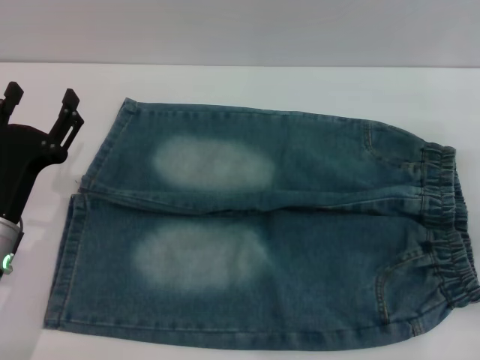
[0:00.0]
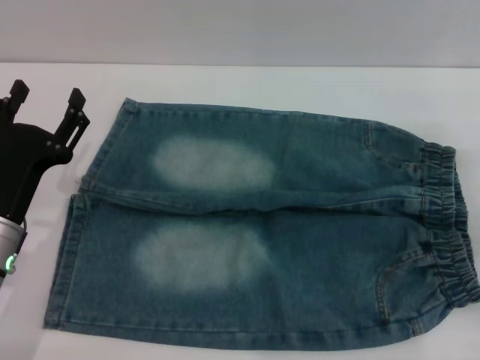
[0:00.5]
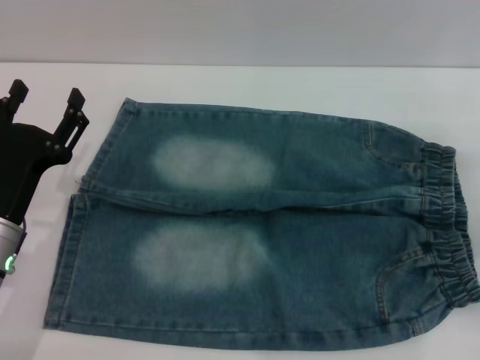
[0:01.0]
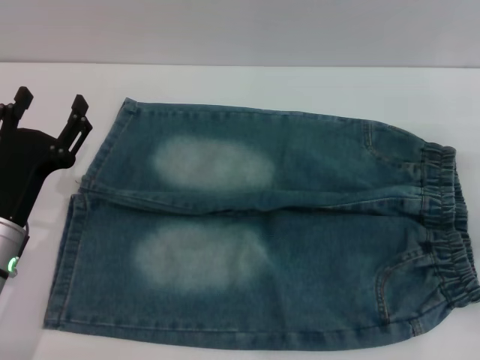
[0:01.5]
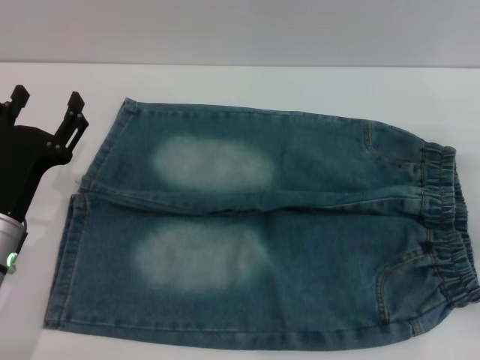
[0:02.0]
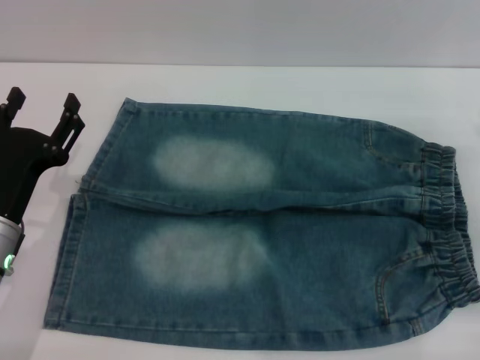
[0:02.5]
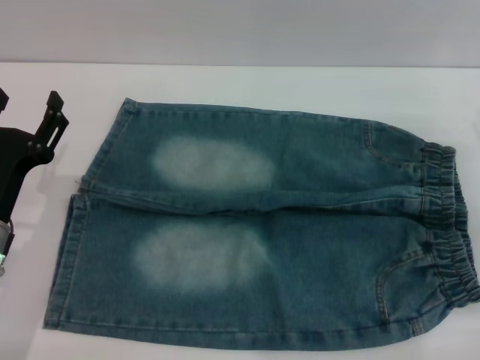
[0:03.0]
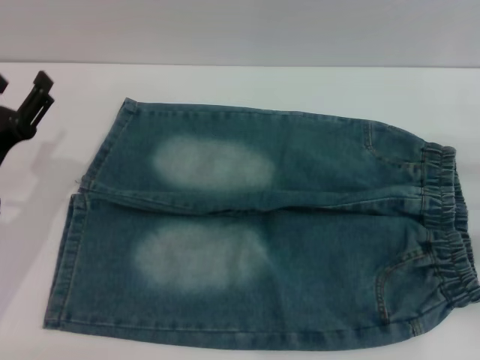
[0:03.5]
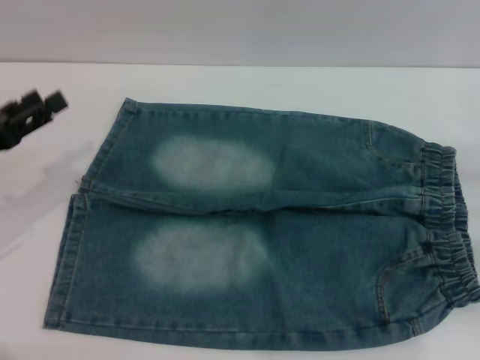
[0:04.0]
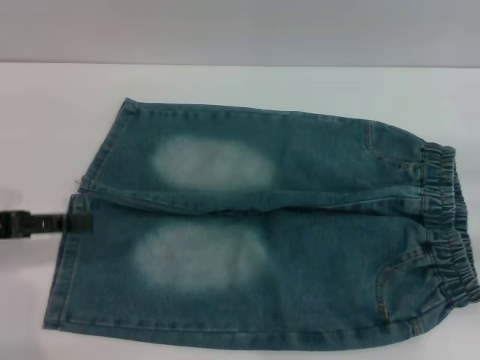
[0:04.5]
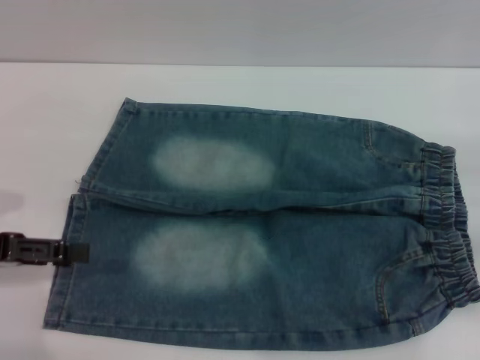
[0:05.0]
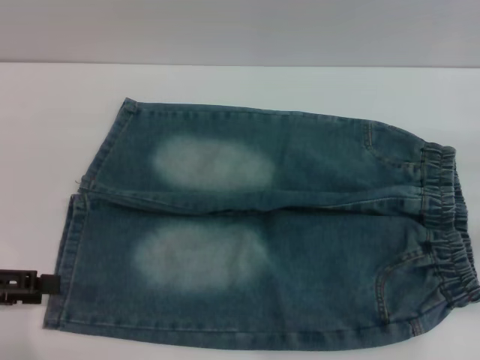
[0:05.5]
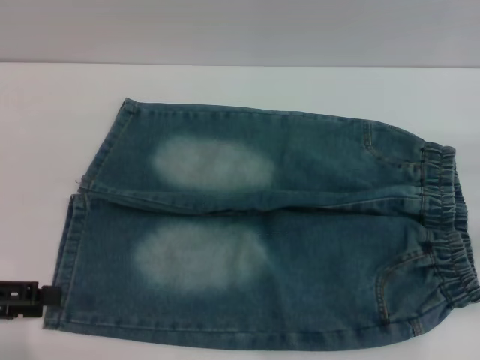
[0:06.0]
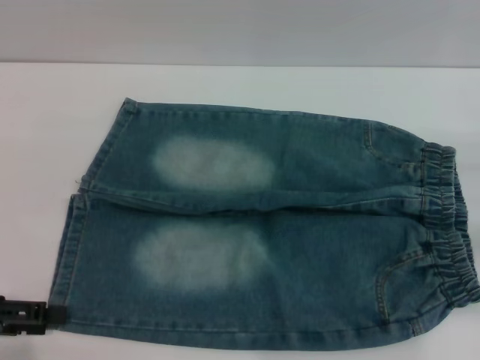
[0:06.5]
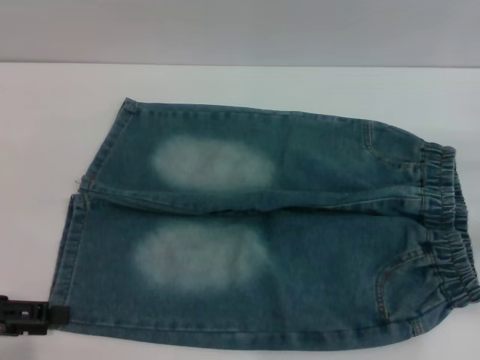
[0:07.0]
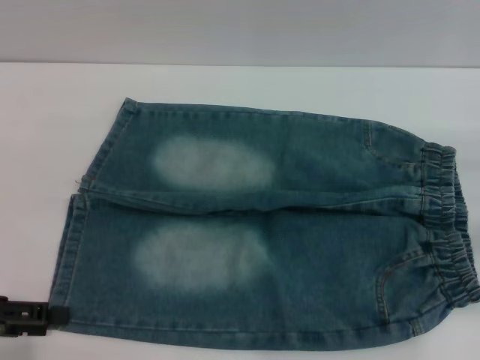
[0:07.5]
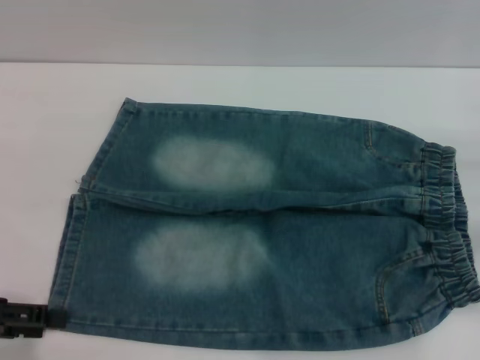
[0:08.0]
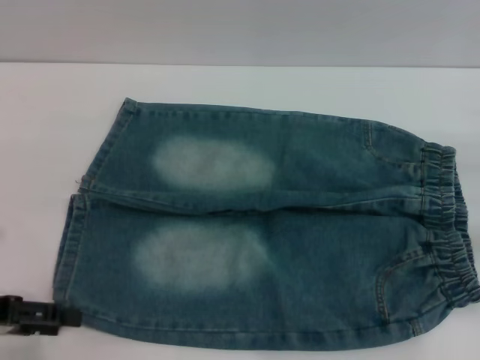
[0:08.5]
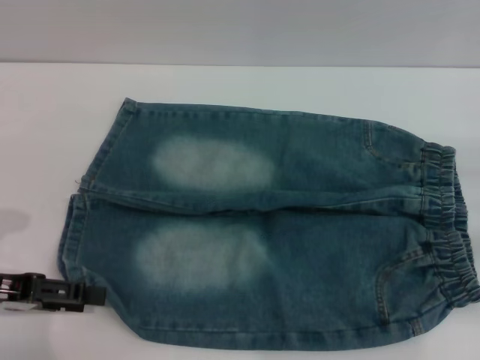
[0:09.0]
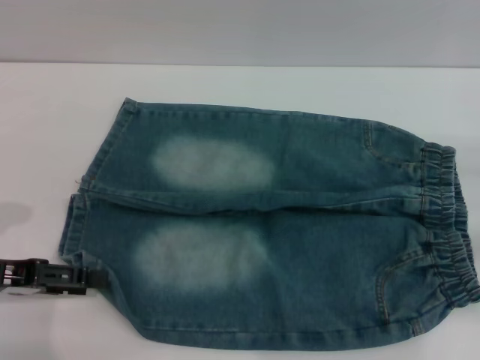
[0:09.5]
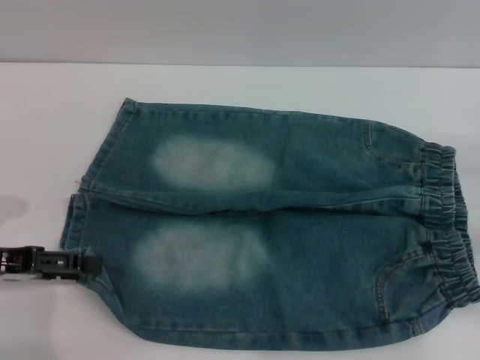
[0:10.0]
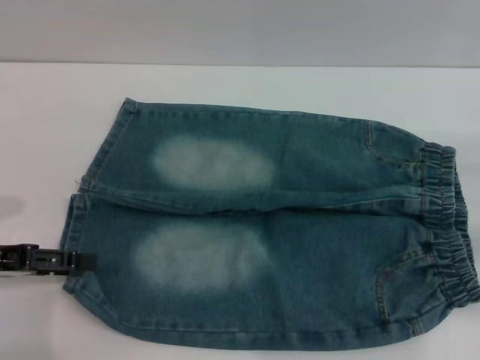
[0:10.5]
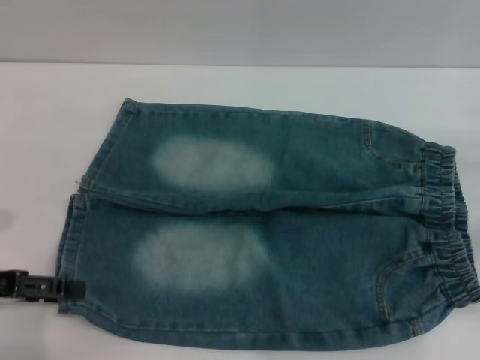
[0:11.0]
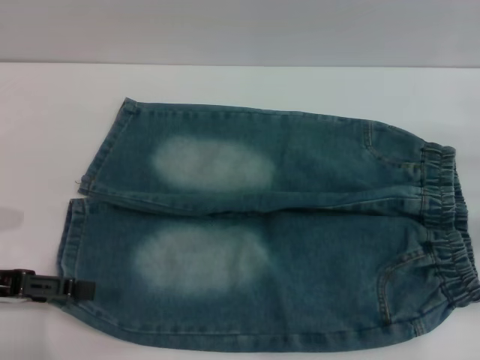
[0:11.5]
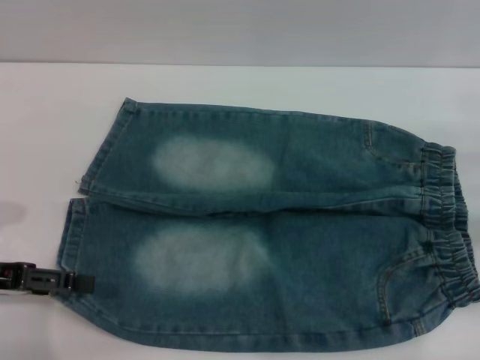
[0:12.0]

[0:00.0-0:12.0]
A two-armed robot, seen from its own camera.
0:00.0 to 0:02.0: Both grippers stay about where they are.
0:02.0 to 0:04.0: The left gripper heads to the left and upward, covering roughly 10 cm.
0:04.0 to 0:06.0: The left gripper heads backward, covering some 5 cm.
0:06.0 to 0:08.0: The grippers make only small movements.
0:08.0 to 0:10.0: The left gripper moves some 5 cm.
0:10.0 to 0:12.0: There are only small adjustments of the grippers.

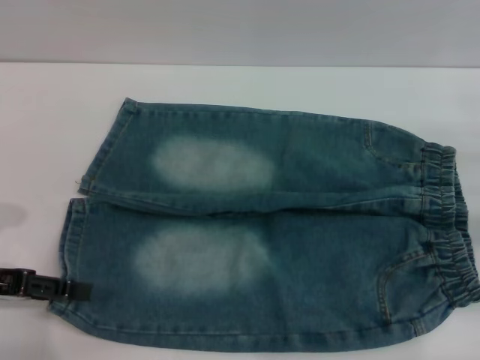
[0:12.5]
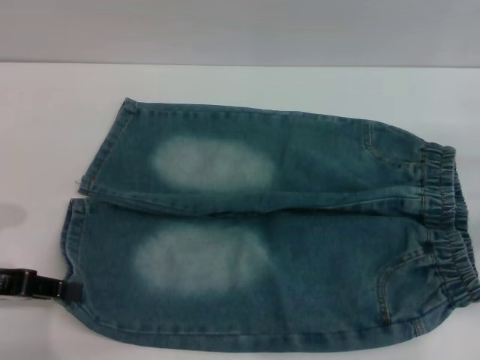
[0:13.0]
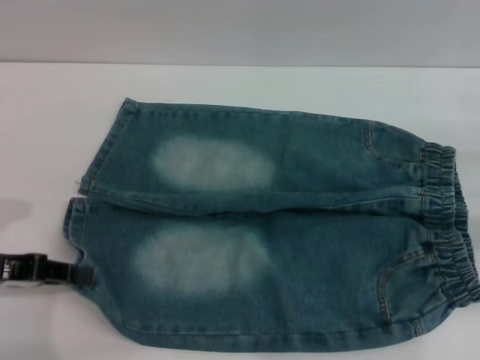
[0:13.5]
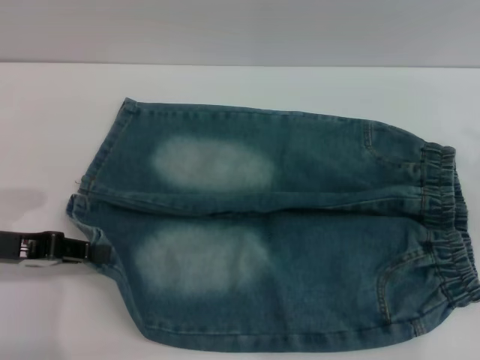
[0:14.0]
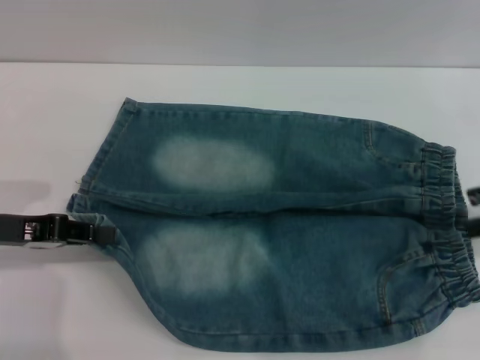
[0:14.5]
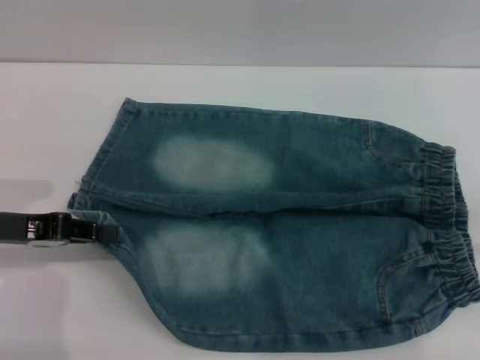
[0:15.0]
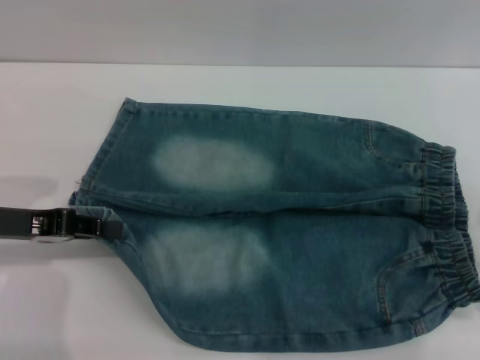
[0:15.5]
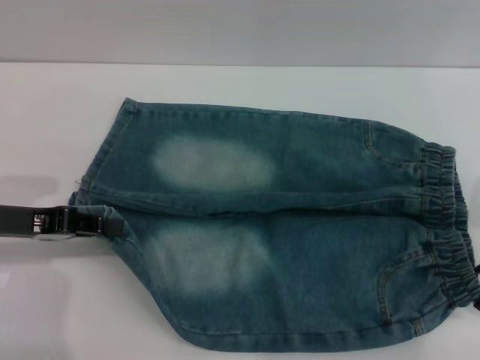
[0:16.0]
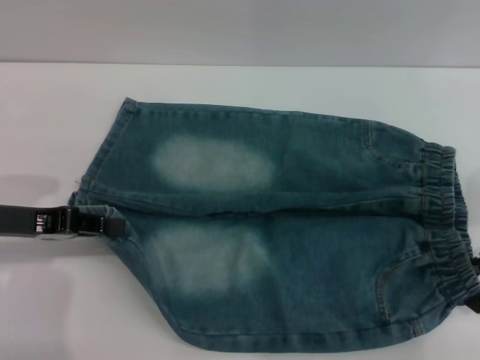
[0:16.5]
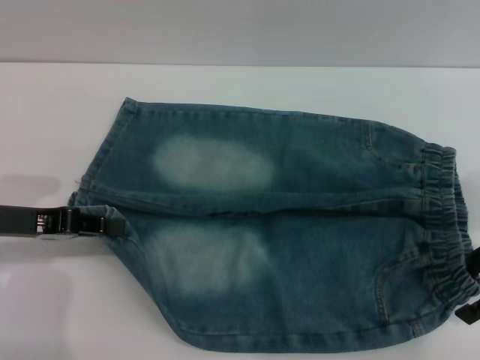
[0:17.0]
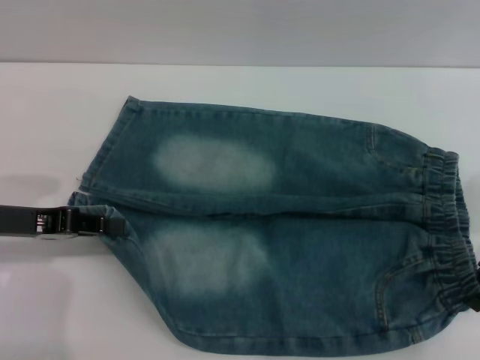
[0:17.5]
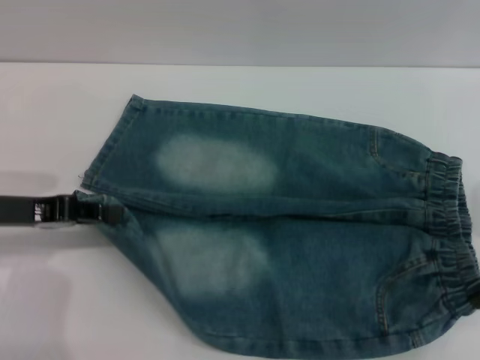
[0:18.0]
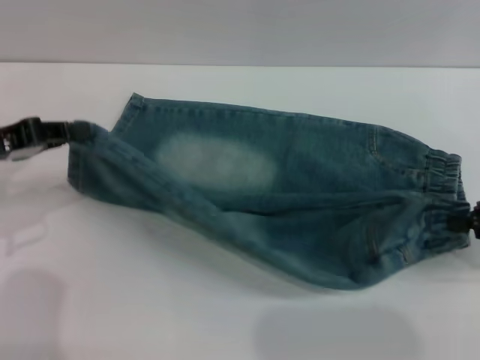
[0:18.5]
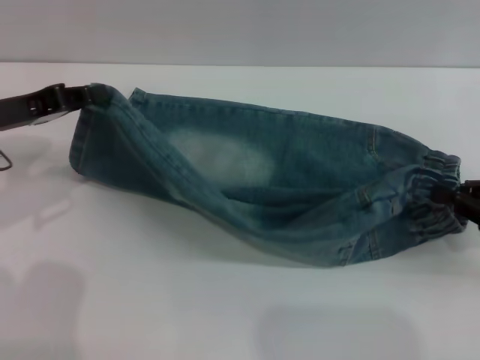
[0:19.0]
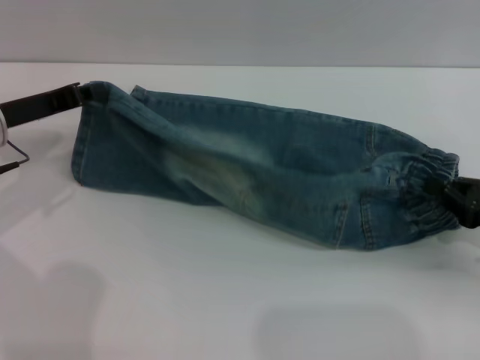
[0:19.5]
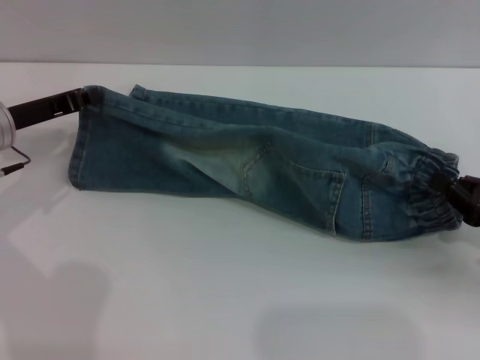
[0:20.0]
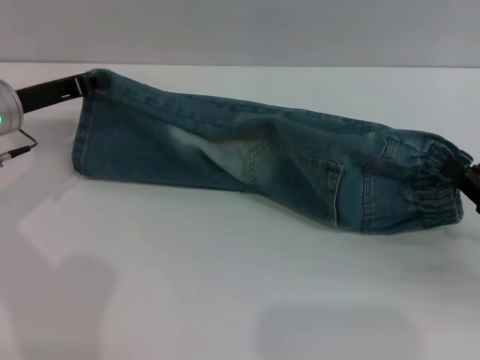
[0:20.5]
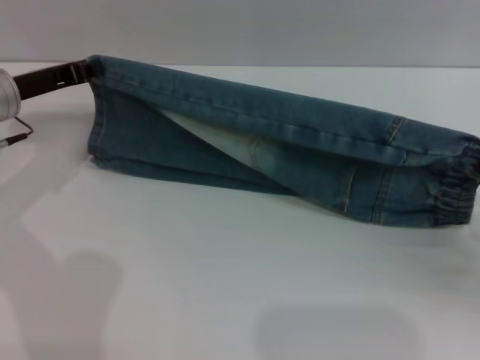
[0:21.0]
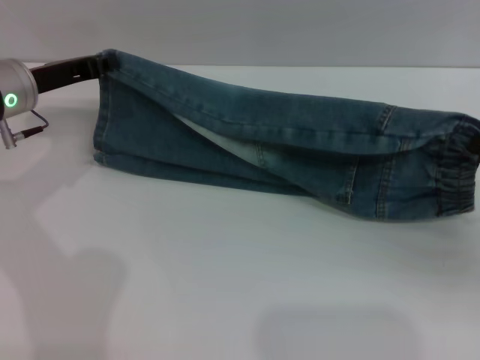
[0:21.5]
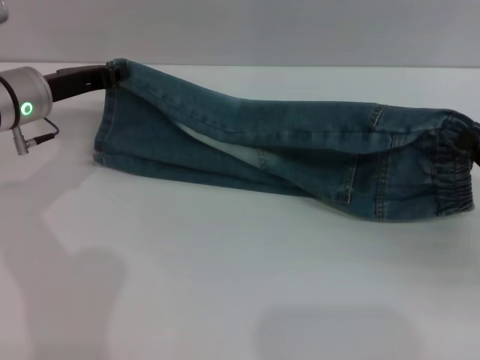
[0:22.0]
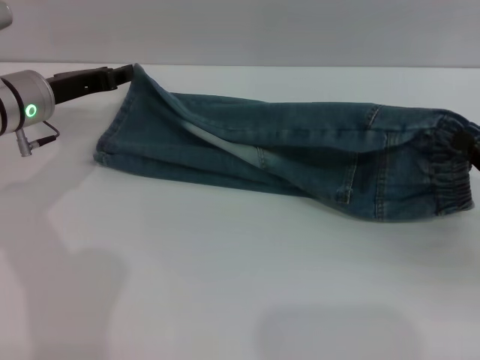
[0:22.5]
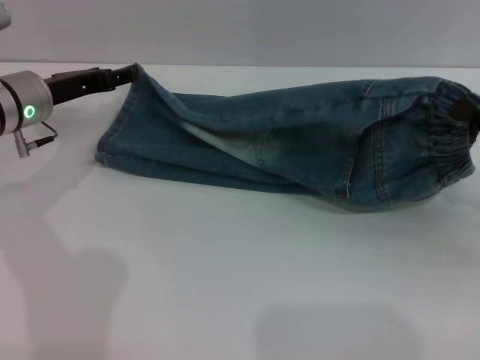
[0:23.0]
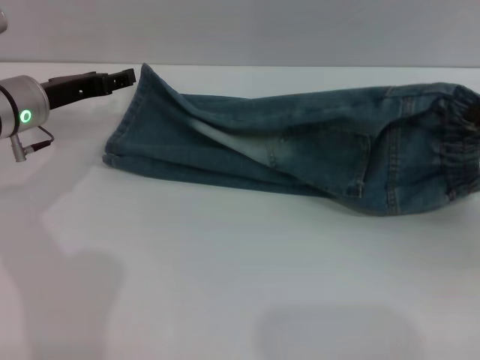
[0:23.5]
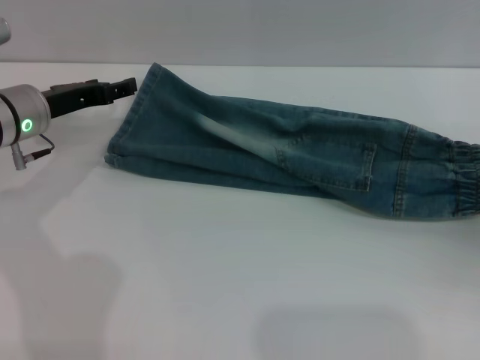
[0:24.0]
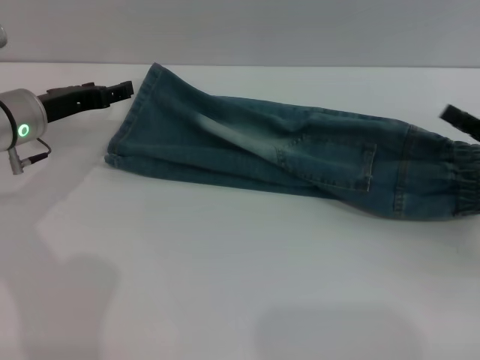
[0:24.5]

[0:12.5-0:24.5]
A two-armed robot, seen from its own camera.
0:12.5 to 0:14.5: The left gripper closes its fingers. Meanwhile the right gripper moves upward, some 10 cm.
0:14.5 to 0:16.5: The right gripper ends up roughly 5 cm from where it was.
0:16.5 to 0:18.5: The right gripper ends up roughly 5 cm from where it was, and closes its fingers.
0:18.5 to 0:20.5: The left gripper moves forward and to the right, roughly 10 cm; the right gripper heads downward, covering roughly 5 cm.
0:20.5 to 0:22.5: The grippers move only a little.
0:22.5 to 0:24.5: The right gripper opens up. The left gripper opens its fingers.

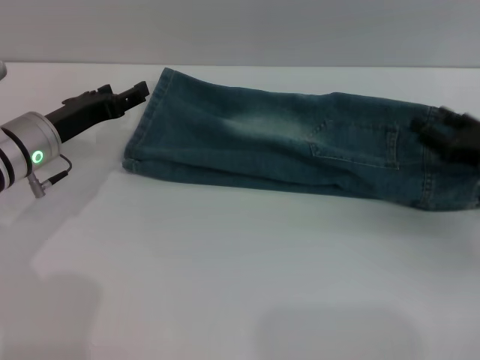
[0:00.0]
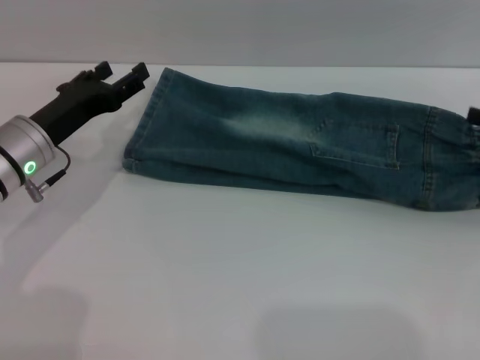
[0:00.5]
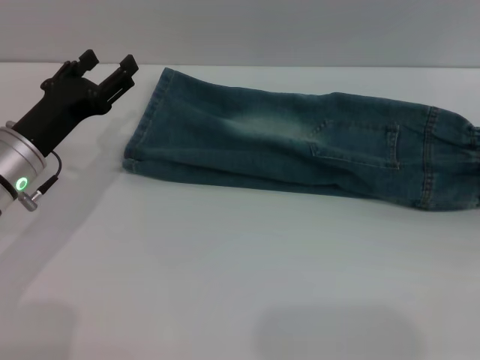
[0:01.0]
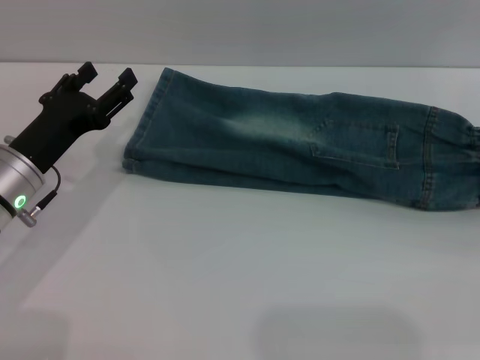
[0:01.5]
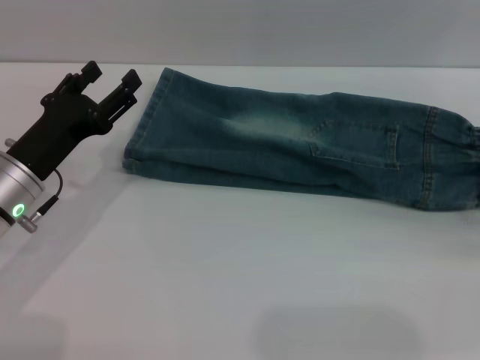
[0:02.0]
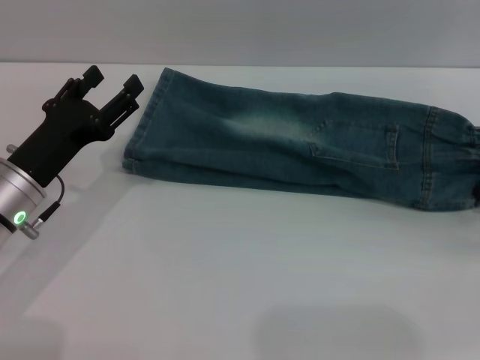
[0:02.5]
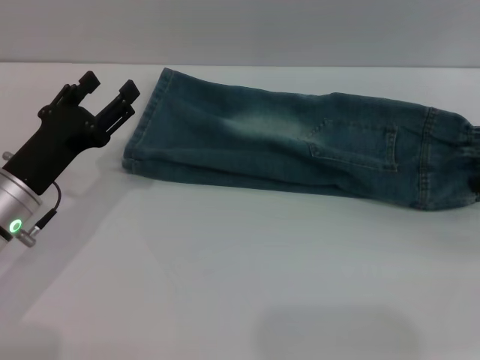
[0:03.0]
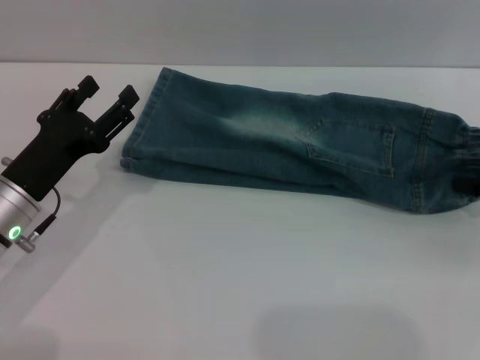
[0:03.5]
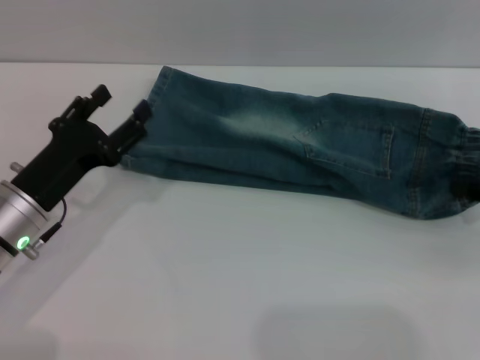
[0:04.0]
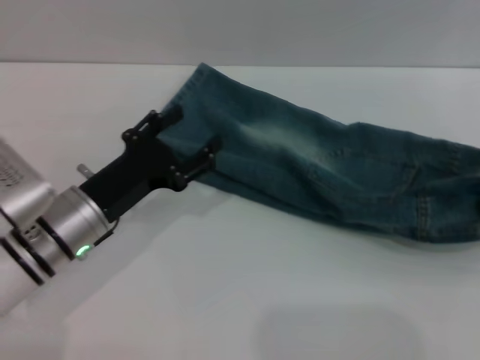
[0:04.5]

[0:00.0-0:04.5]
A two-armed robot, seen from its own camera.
0:00.0 to 0:02.0: The left gripper goes approximately 5 cm backward; the right gripper travels to the right and upward by some 10 cm.
0:02.0 to 0:04.5: The left gripper goes roughly 5 cm to the right; the right gripper ends up some 5 cm from where it was, and closes its fingers.
